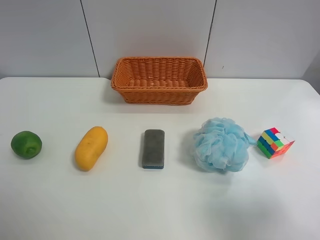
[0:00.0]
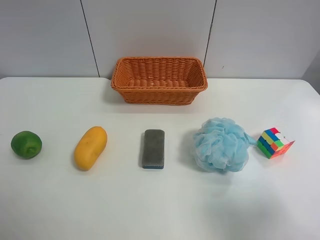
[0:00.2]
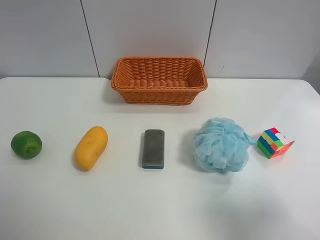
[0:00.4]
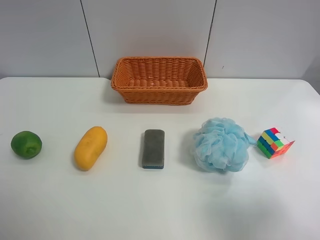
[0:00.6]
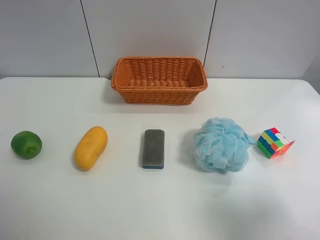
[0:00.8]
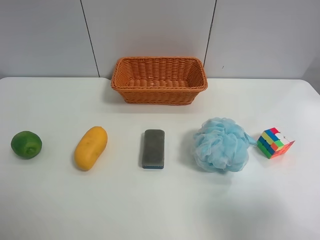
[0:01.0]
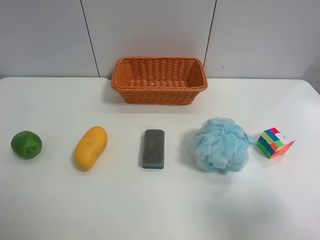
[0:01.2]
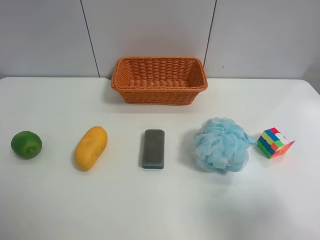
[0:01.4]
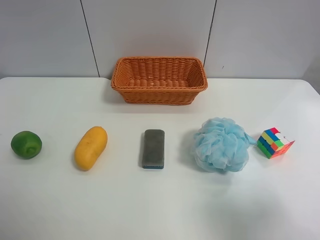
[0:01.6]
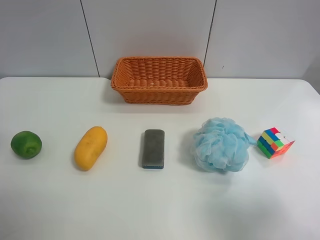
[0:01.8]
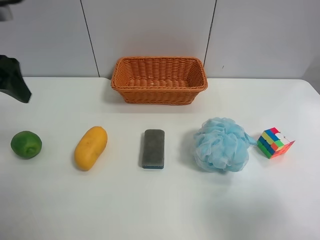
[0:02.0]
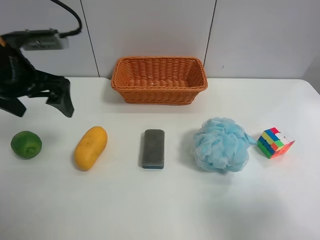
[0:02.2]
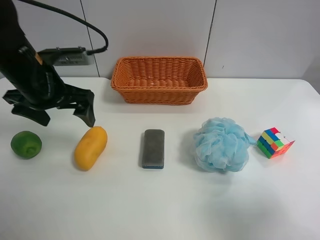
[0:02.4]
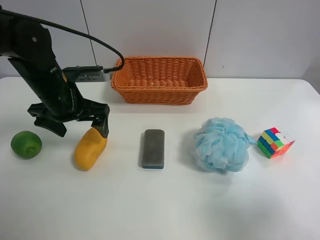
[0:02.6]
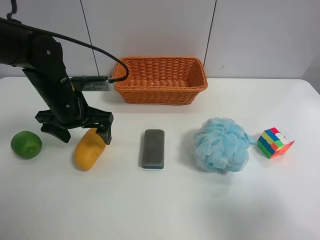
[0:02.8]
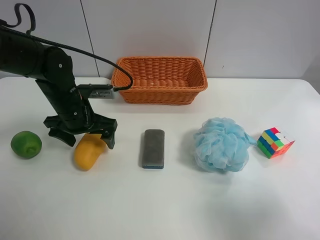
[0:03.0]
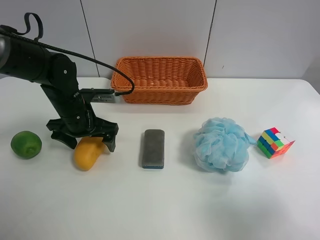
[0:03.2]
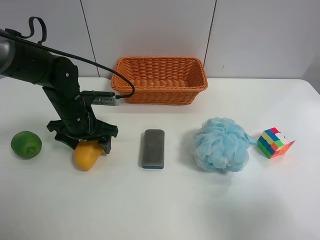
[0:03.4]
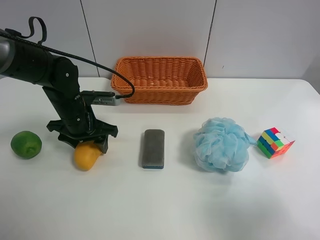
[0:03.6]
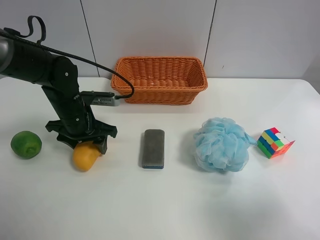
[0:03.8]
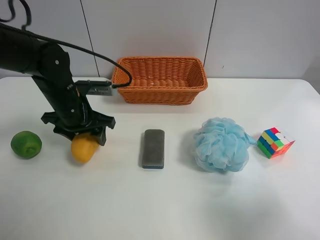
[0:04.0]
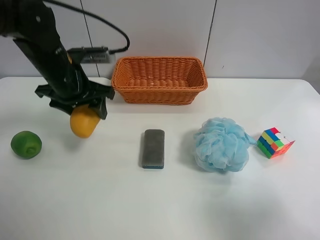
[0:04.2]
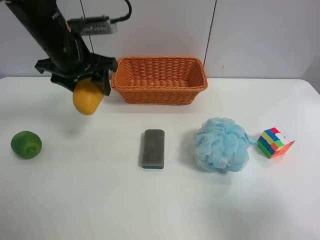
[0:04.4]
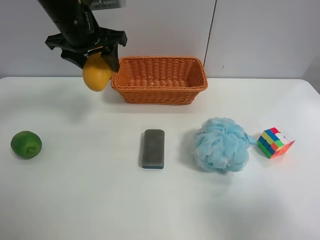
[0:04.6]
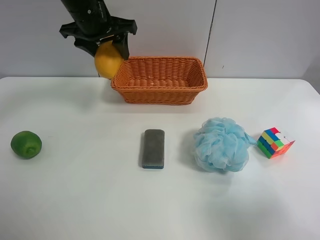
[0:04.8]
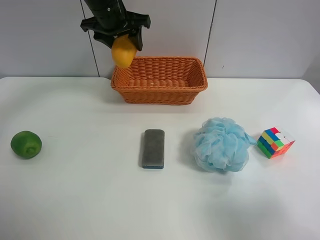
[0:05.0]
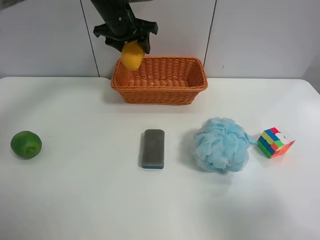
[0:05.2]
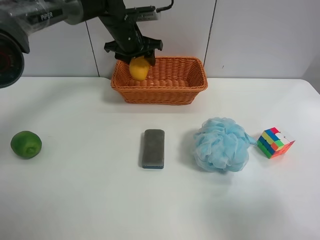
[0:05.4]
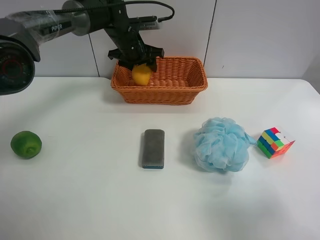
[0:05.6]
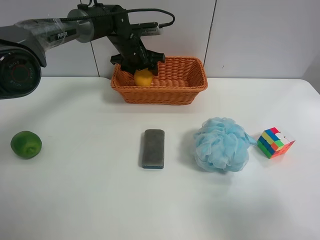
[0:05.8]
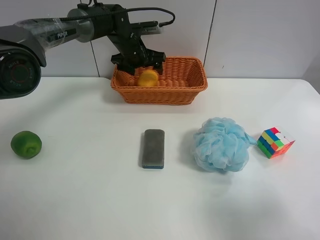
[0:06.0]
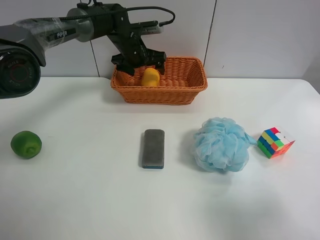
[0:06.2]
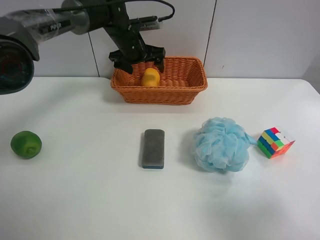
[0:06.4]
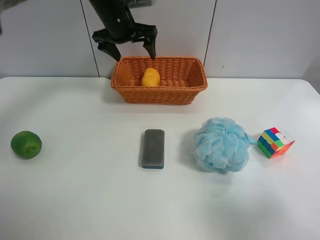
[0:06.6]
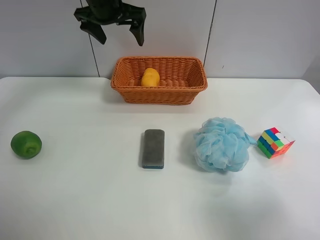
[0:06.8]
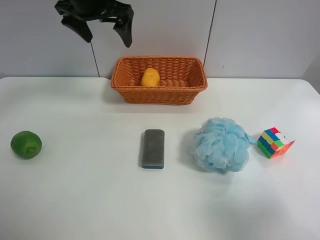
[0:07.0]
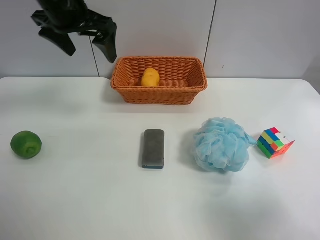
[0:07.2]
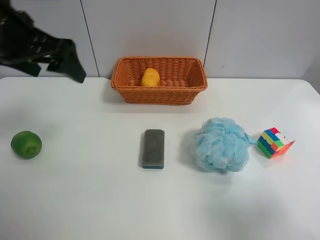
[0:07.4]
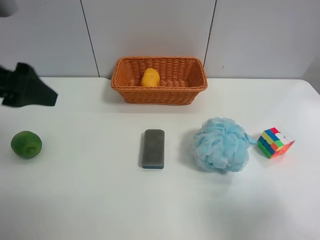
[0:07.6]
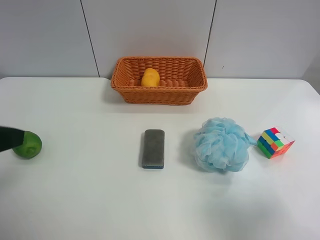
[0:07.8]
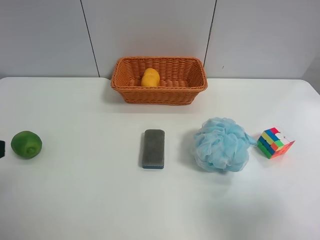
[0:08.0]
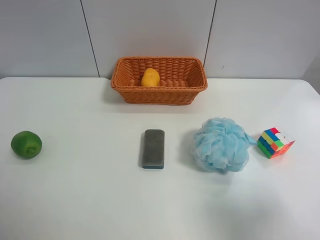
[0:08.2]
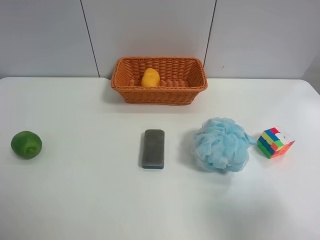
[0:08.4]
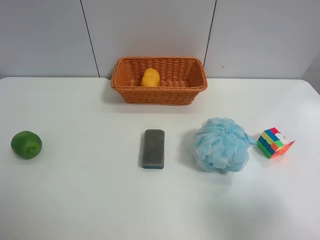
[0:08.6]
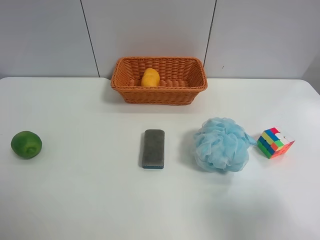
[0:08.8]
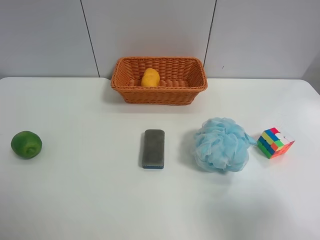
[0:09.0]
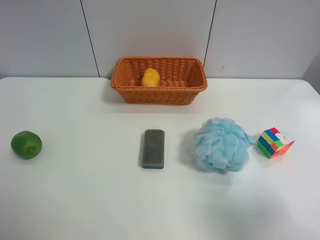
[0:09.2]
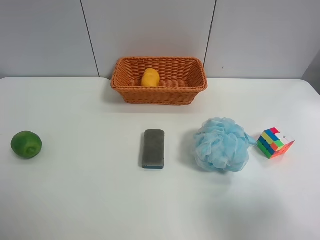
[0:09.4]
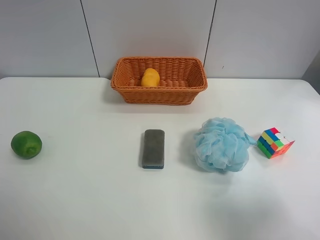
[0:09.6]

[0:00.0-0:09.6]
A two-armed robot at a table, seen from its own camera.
Task of the whole recording: use the left gripper to grab items from the table and place them in the basket.
Step, 0:00.0 to 0:03.6: Grasp the mango with the left gripper.
Step, 0:03.8 to 0:06.2: Place the mango into the basket with the left gripper.
0:01.6 to 0:03.2: The left gripper moves downward, forward and to the right, about 35 cm.
0:03.2 to 0:04.8: The left gripper moves upward and forward, roughly 20 cm, and closes up.
0:04.8 to 0:06.4: The left gripper goes approximately 15 cm downward and forward, and opens up.
0:06.4 to 0:08.0: The left gripper shifts roughly 50 cm backward and to the left.
